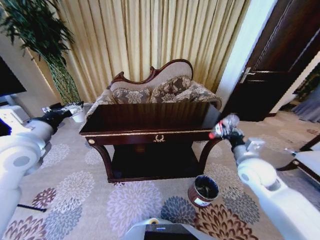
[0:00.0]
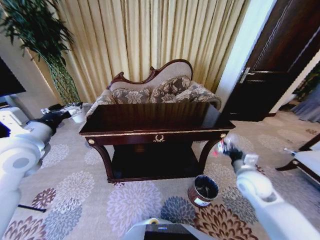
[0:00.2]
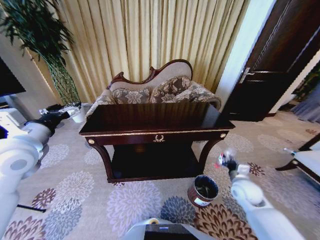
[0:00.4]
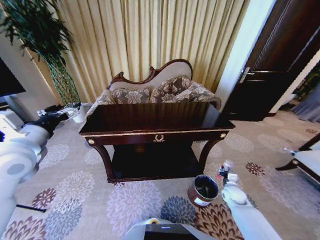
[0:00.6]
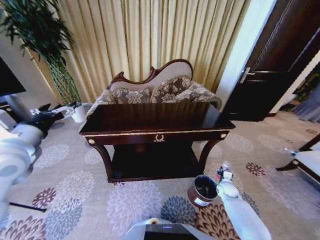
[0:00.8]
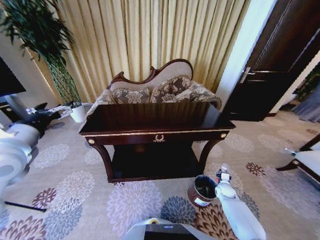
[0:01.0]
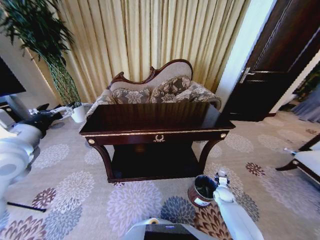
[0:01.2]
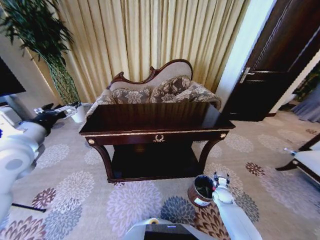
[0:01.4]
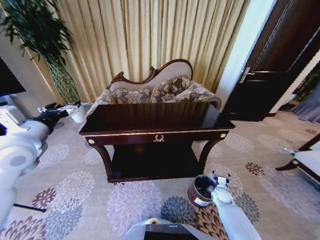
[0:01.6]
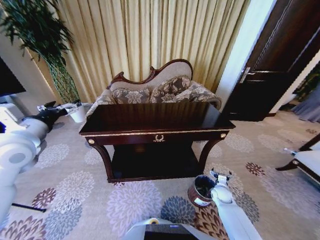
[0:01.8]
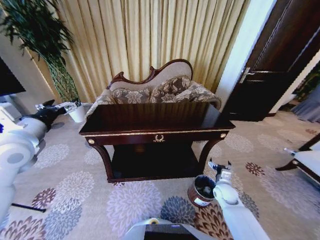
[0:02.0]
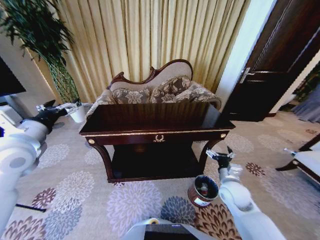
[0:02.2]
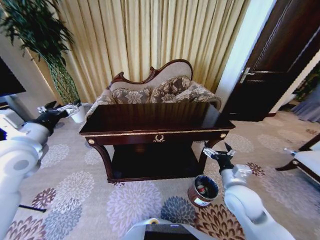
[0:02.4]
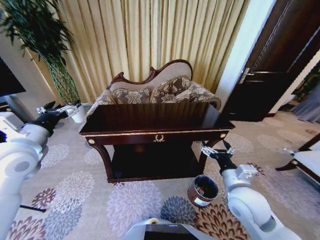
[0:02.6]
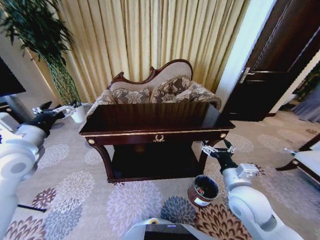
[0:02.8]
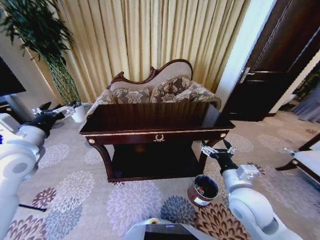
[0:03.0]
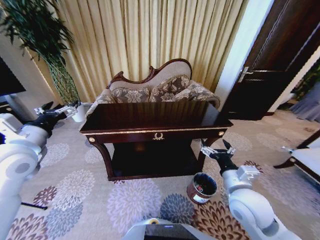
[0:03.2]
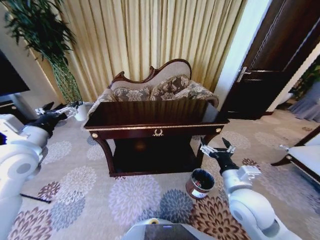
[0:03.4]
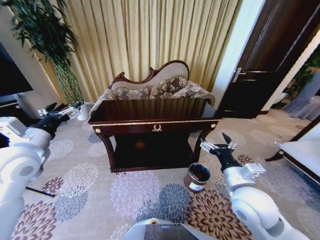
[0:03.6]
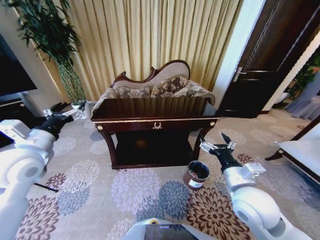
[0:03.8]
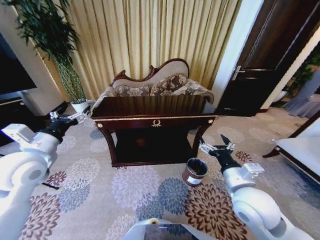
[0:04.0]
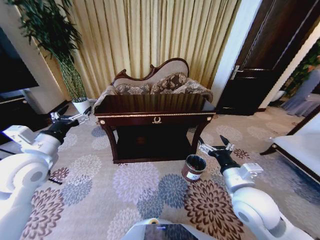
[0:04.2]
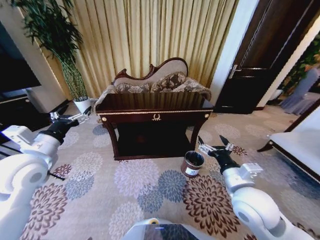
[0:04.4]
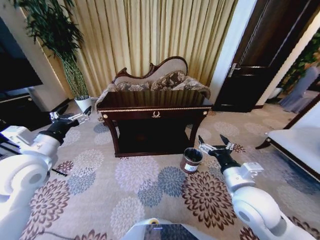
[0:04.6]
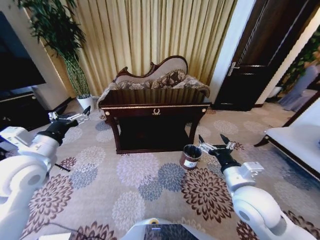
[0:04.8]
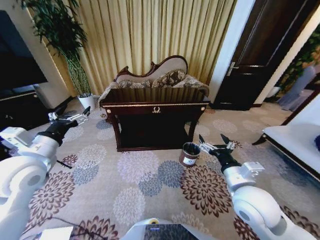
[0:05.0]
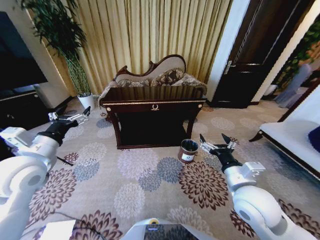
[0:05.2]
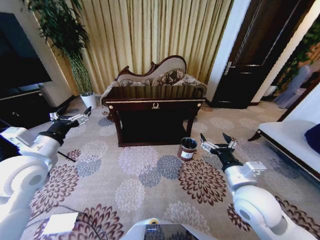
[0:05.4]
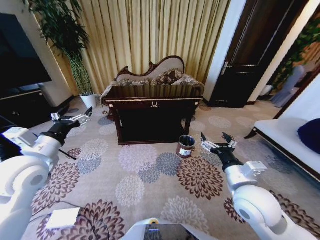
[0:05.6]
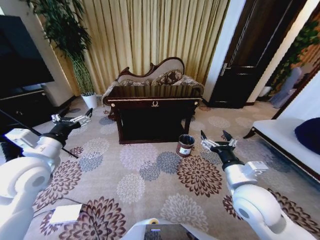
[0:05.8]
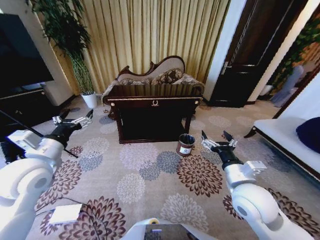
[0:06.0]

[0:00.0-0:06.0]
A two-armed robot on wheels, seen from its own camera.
Task of the whole recording: Move to the front of the table and place the trash on the table into the trash bin.
0:00.0 to 0:01.6: The right gripper is displaced downward by approximately 35 cm, and opens.
0:01.6 to 0:03.0: The right gripper shifts about 30 cm upward.

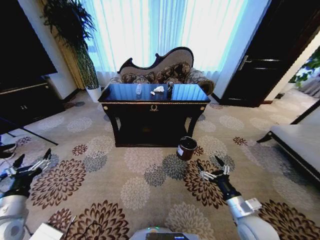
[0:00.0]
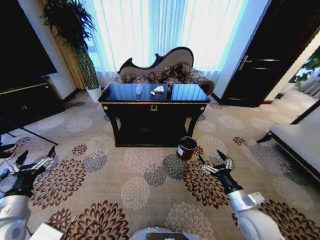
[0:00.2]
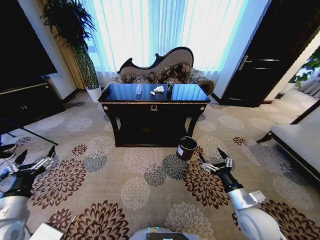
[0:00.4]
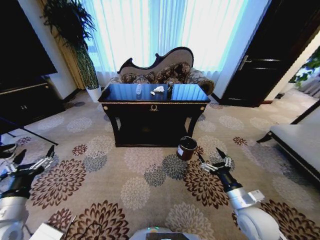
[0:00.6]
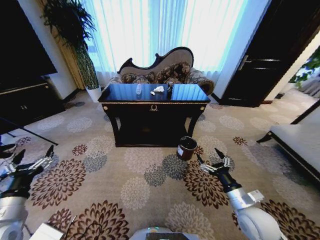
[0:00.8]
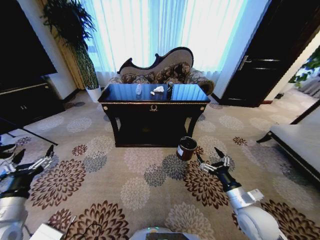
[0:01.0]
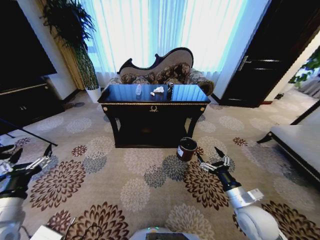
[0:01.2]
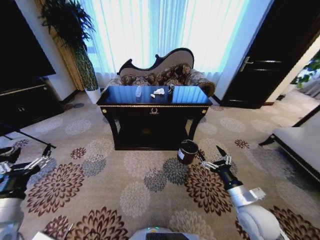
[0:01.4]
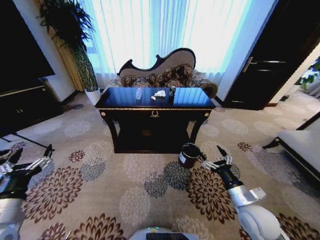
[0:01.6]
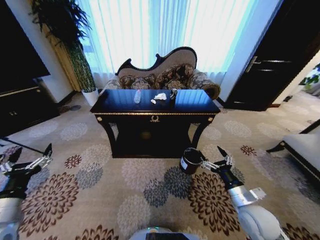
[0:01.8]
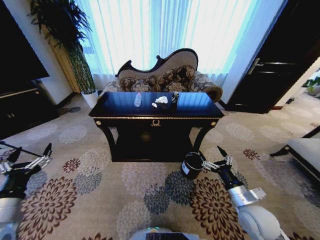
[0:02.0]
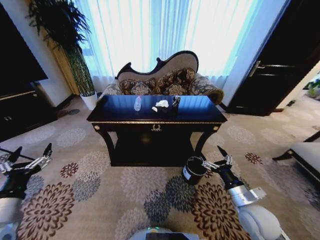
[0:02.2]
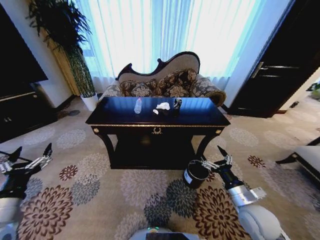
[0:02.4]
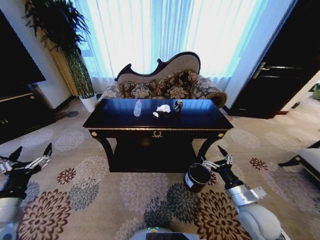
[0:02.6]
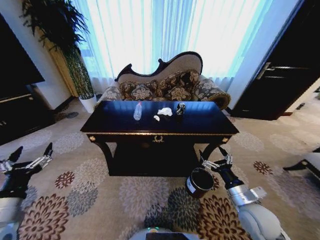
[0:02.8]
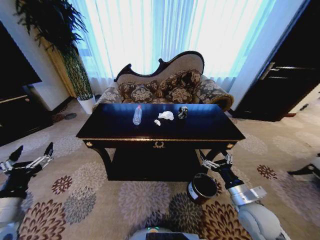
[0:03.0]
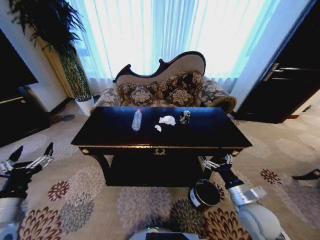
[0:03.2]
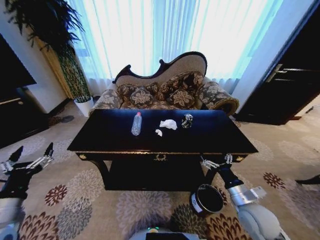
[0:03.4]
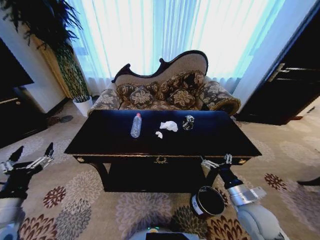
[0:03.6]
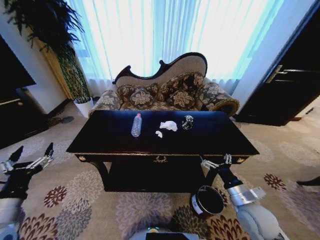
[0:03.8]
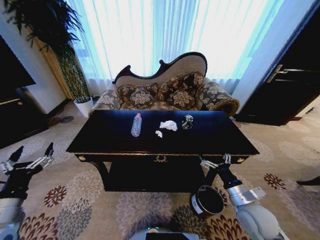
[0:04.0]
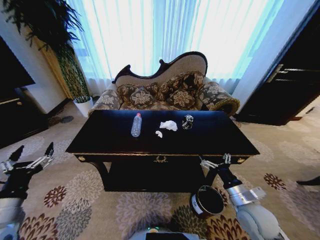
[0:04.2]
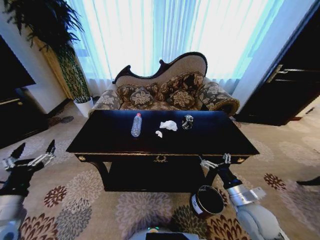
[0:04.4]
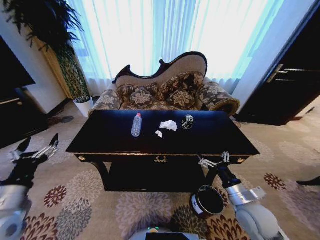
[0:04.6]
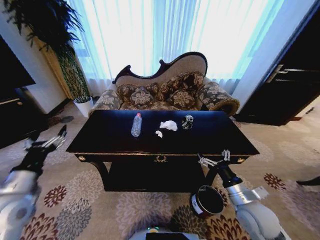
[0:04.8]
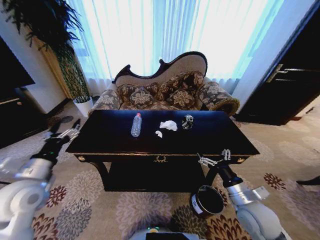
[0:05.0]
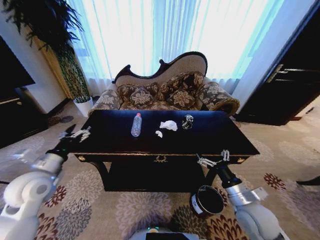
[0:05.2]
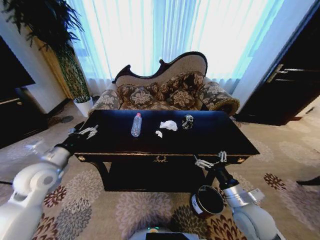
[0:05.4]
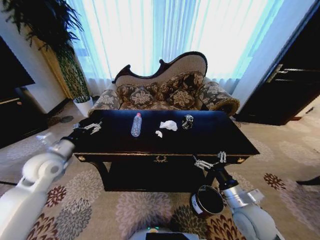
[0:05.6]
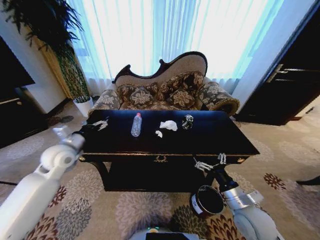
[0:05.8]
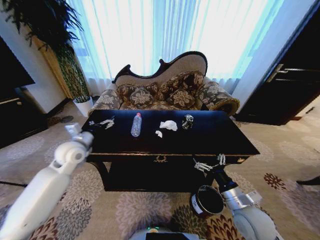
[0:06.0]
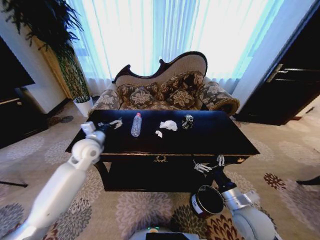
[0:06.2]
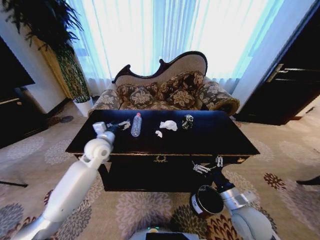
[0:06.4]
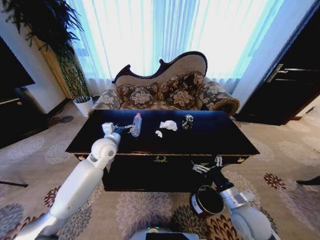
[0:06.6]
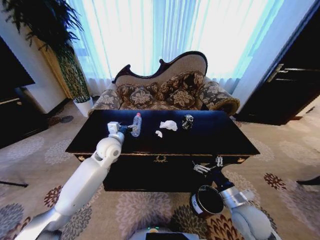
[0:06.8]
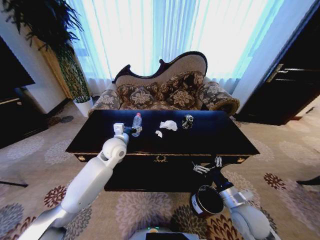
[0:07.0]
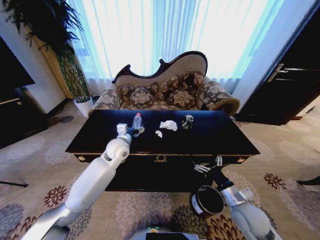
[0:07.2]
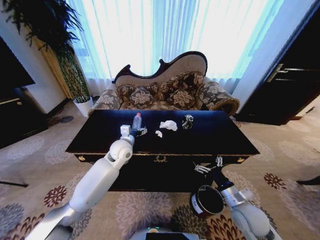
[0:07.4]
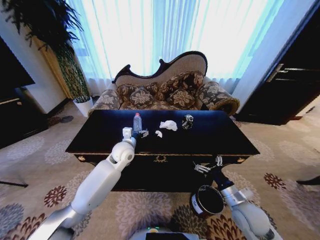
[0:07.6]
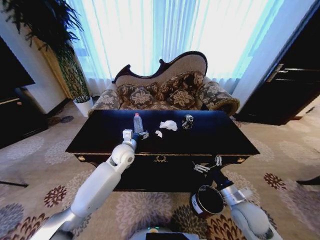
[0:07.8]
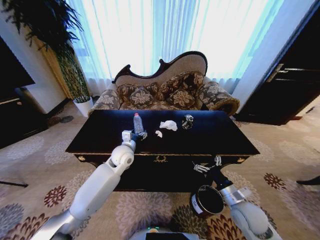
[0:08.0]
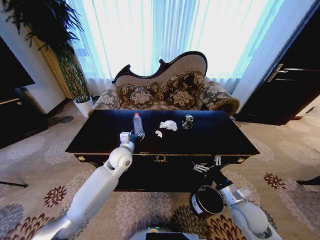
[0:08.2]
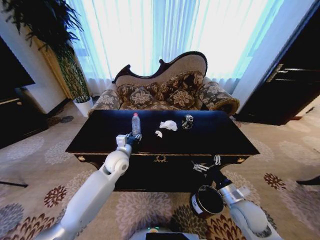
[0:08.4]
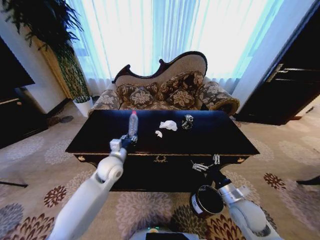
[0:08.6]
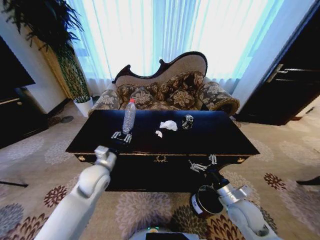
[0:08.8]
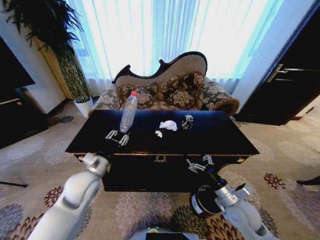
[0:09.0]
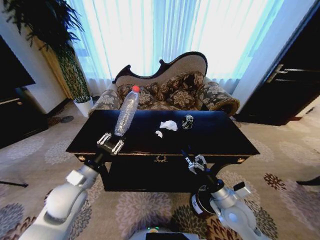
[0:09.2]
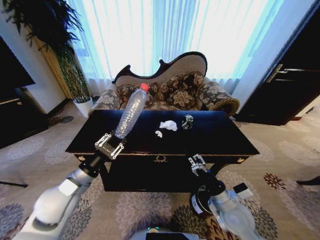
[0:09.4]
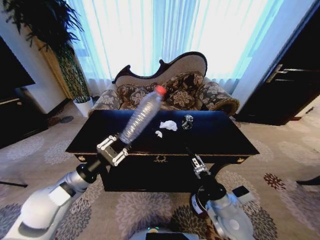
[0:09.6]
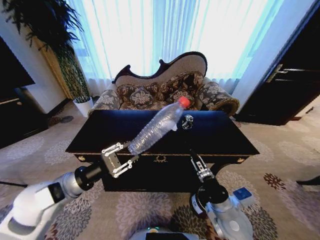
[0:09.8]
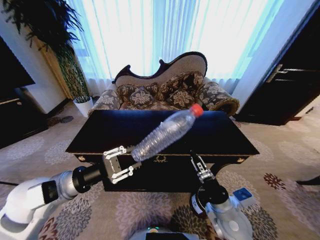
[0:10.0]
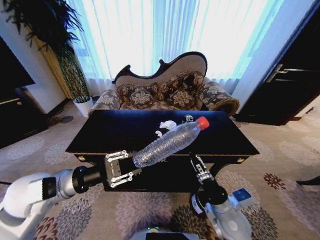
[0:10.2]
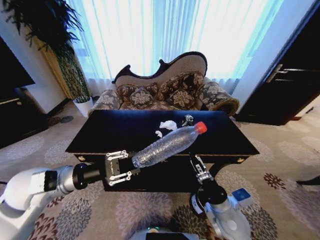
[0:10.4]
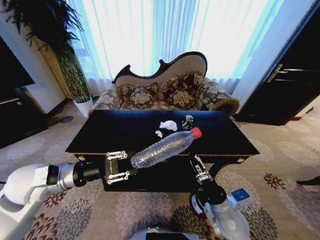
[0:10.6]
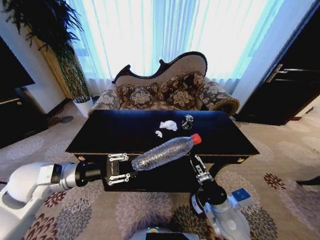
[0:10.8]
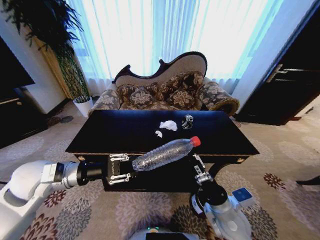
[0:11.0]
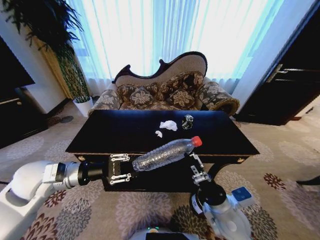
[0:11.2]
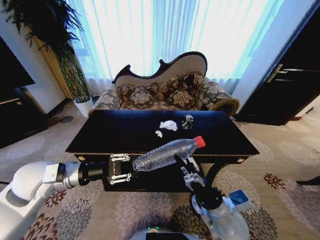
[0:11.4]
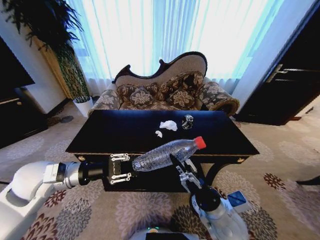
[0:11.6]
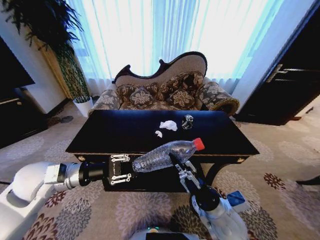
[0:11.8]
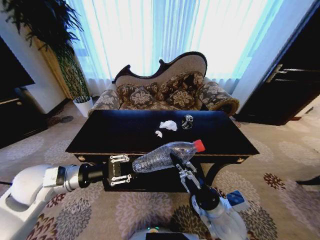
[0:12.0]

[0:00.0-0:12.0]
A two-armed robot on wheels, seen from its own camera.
Task of the whole recording: Move to the front of the table and place the trash on the table into the trash bin.
0:04.4 to 0:06.0: The left gripper is displaced forward by approximately 25 cm.
0:06.0 to 0:07.6: The left gripper travels to the right by about 20 cm.
0:07.6 to 0:09.0: The left gripper shifts approximately 20 cm backward and to the left, and closes up.
0:09.0 to 0:10.4: The left gripper shifts roughly 10 cm upward and to the left. Meanwhile the right gripper goes about 5 cm to the left.
0:10.4 to 0:12.0: The right gripper closes up.

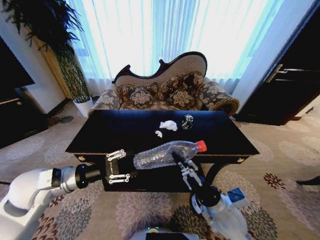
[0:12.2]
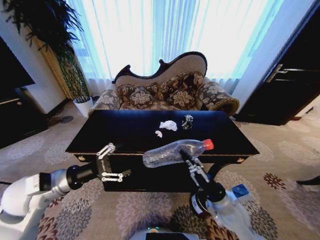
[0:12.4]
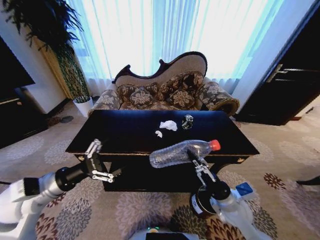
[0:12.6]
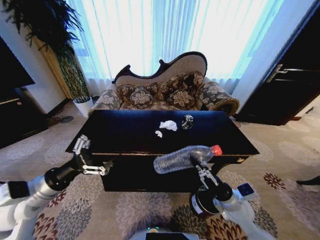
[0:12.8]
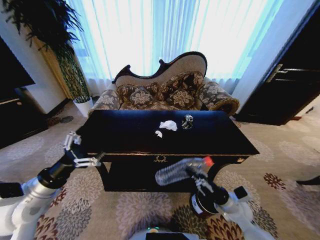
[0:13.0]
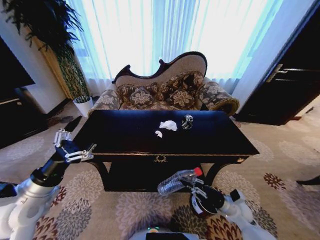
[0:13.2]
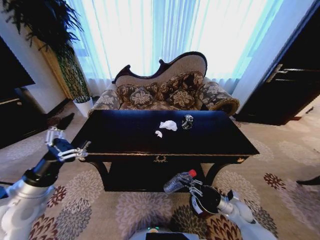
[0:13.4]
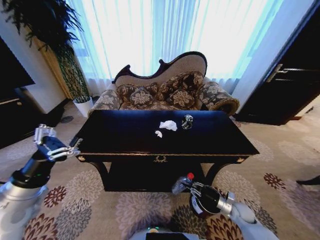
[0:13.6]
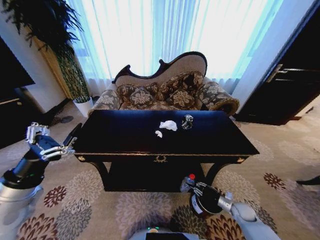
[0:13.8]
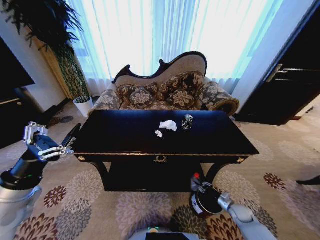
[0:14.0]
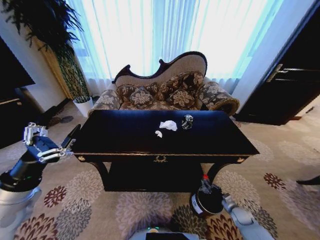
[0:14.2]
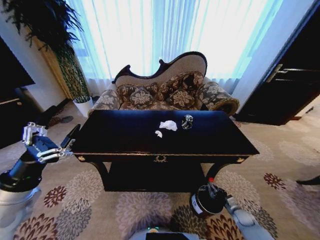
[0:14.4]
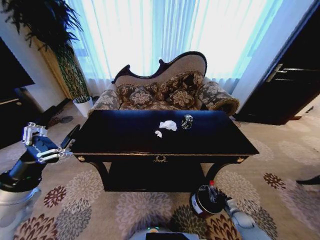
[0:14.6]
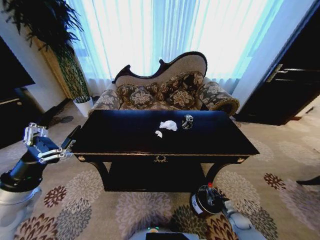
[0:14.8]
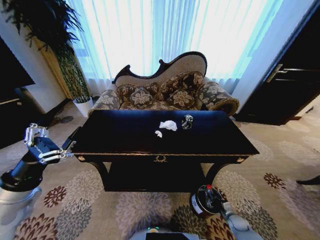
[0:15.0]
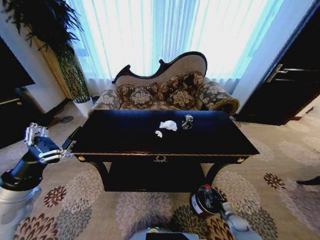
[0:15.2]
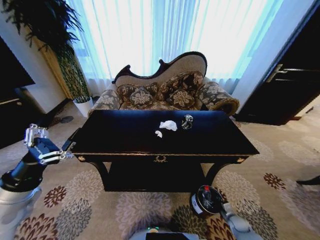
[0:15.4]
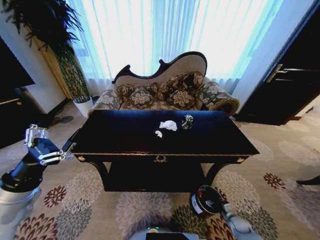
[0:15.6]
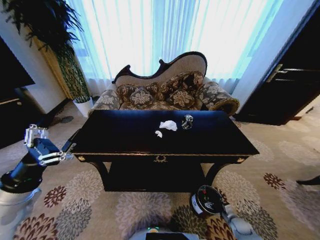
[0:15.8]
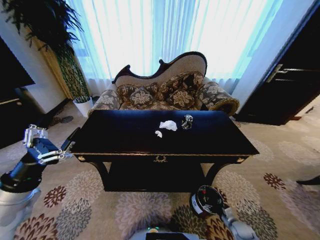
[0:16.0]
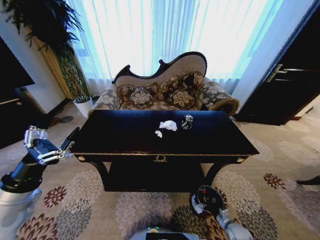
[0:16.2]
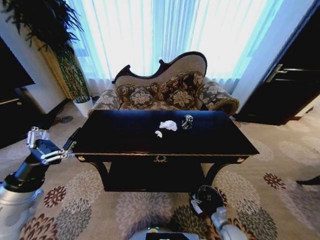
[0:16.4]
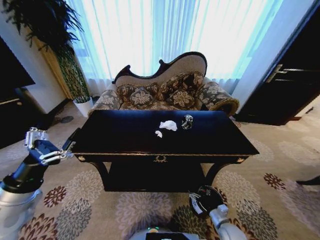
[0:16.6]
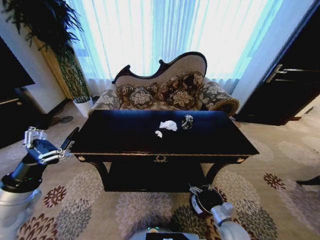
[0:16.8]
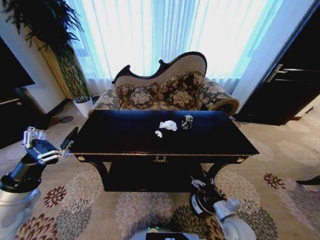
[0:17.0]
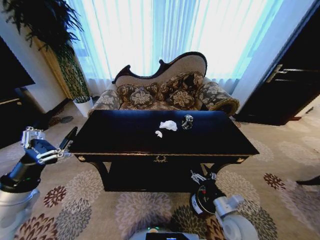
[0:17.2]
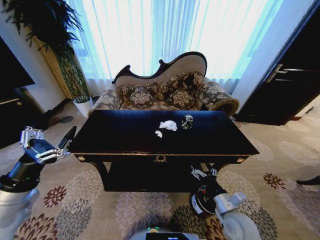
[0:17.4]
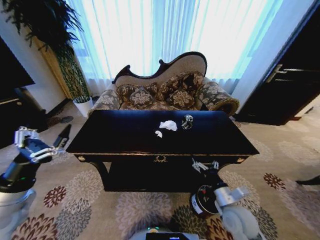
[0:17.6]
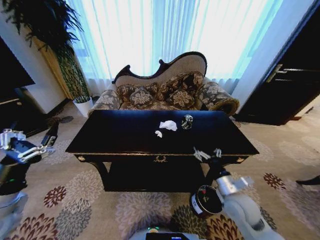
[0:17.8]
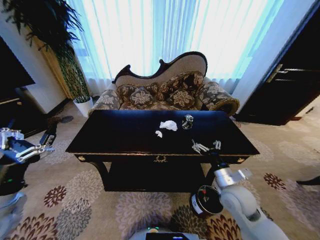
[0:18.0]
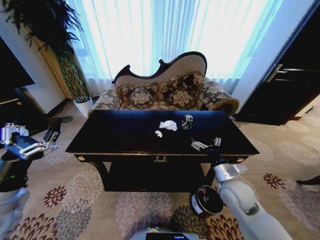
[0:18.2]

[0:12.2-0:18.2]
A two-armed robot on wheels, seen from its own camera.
Task of the whole recording: Move to the front of the table and place the trash on the table into the trash bin.
0:12.2 to 0:13.8: The left gripper is displaced backward and to the left by approximately 10 cm, and opens, while the right gripper heads downward and to the right, covering approximately 30 cm.
0:13.8 to 0:15.2: The right gripper goes approximately 10 cm downward.
0:15.2 to 0:16.6: The right gripper heads to the left and upward, covering approximately 15 cm, and opens up.
0:16.6 to 0:18.2: The right gripper is displaced upward and forward by roughly 25 cm.
